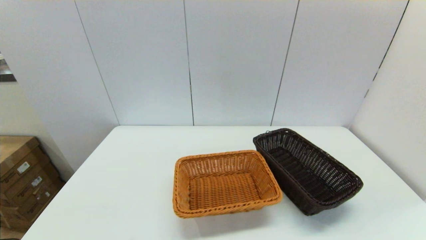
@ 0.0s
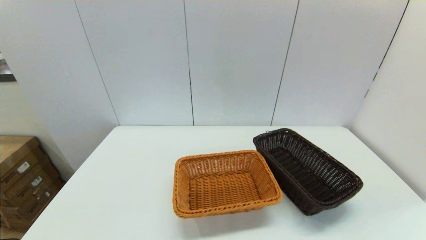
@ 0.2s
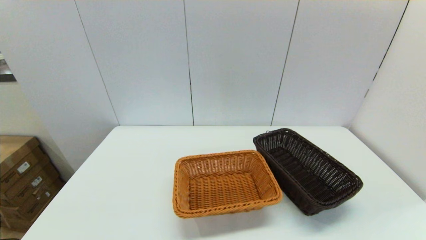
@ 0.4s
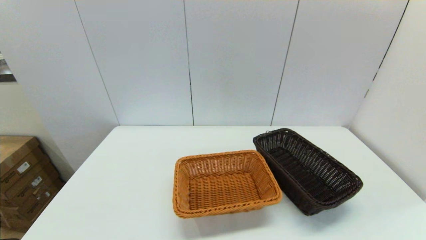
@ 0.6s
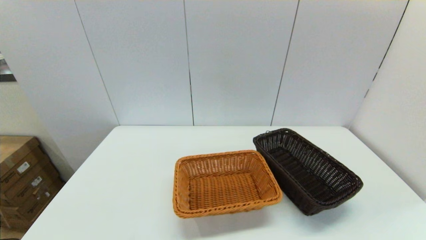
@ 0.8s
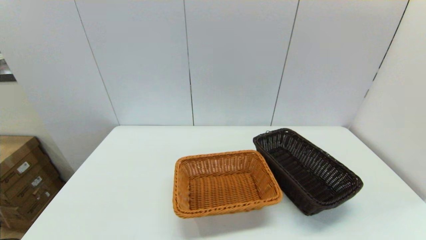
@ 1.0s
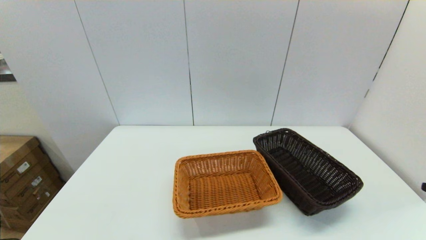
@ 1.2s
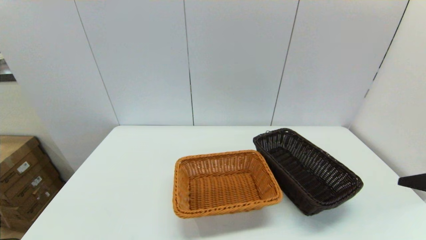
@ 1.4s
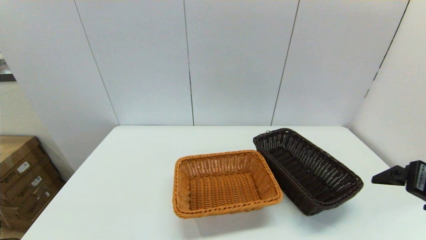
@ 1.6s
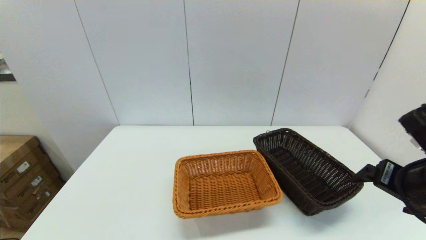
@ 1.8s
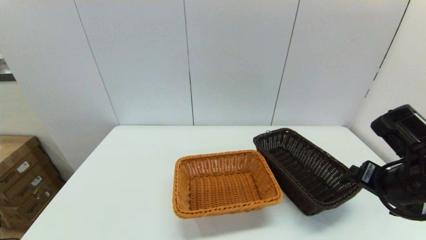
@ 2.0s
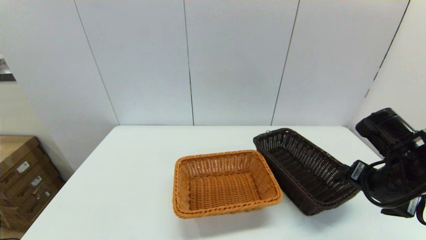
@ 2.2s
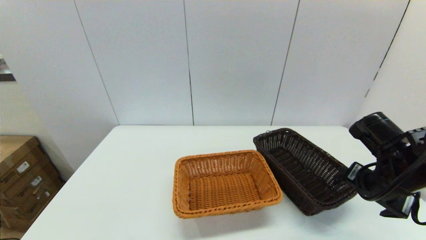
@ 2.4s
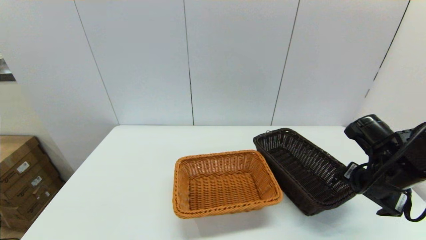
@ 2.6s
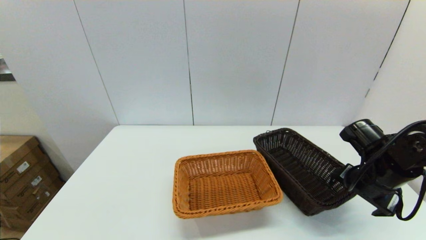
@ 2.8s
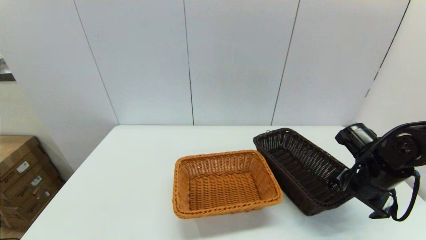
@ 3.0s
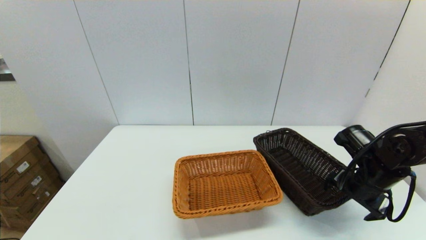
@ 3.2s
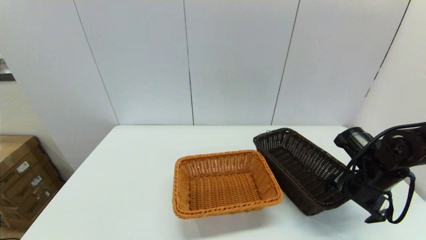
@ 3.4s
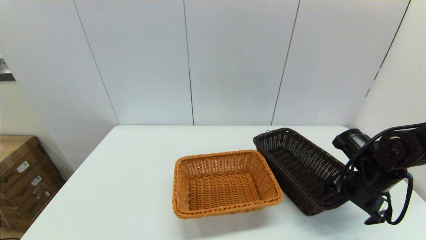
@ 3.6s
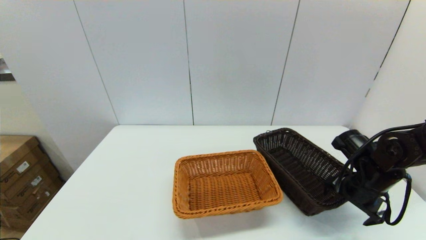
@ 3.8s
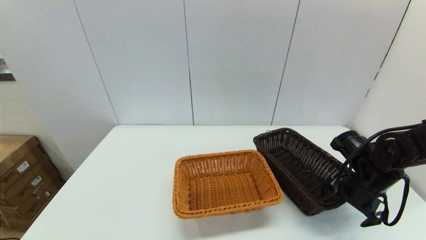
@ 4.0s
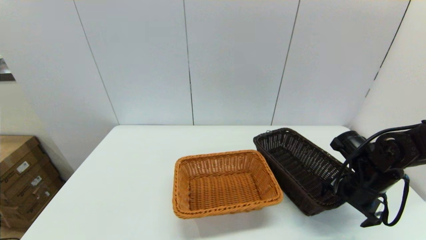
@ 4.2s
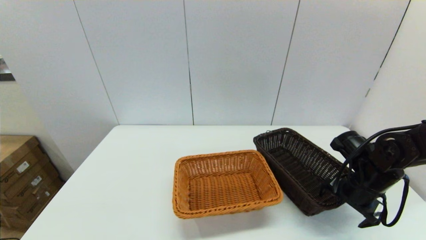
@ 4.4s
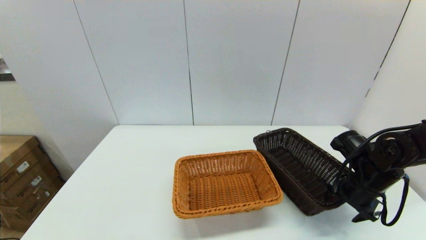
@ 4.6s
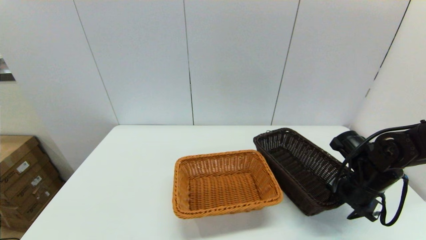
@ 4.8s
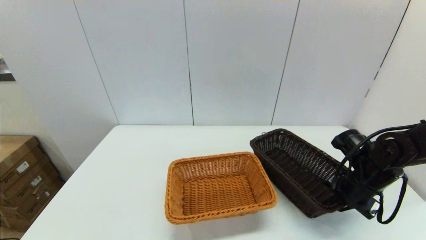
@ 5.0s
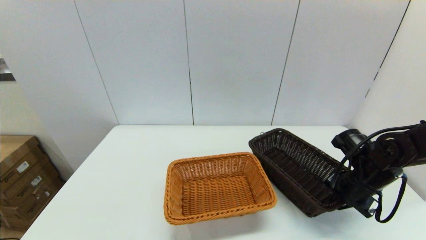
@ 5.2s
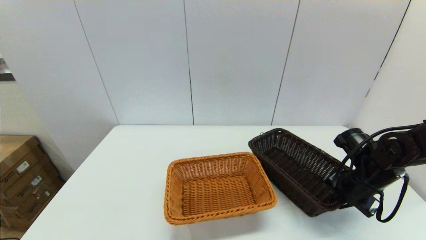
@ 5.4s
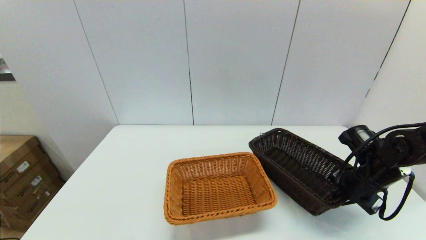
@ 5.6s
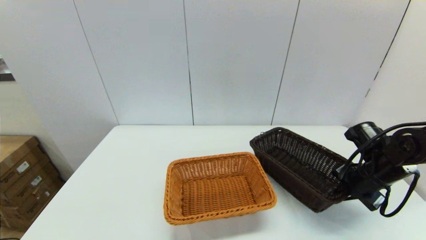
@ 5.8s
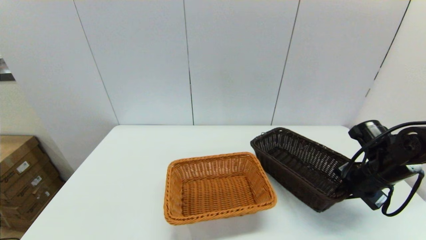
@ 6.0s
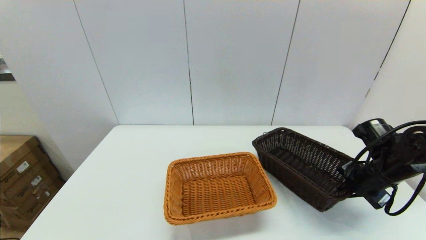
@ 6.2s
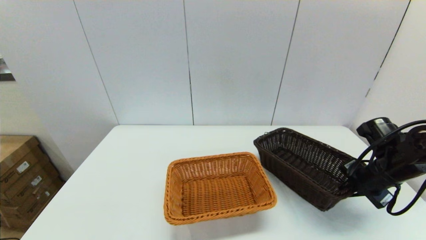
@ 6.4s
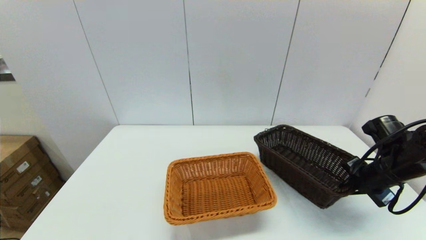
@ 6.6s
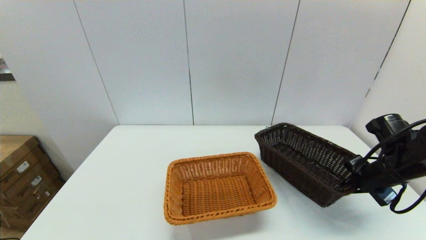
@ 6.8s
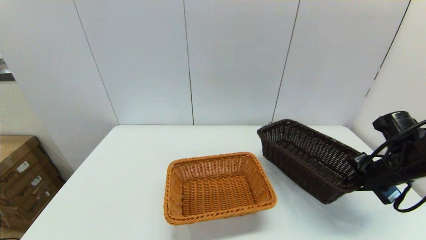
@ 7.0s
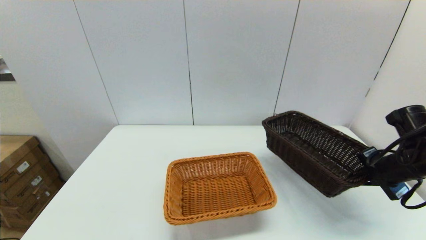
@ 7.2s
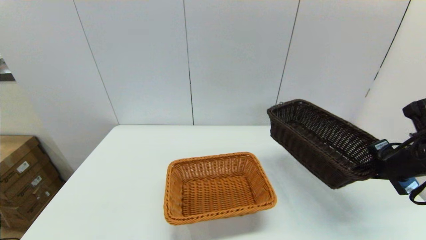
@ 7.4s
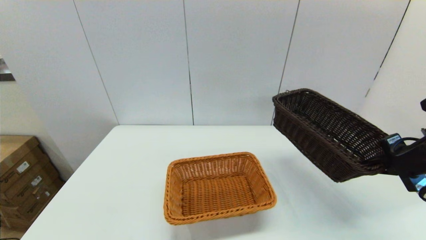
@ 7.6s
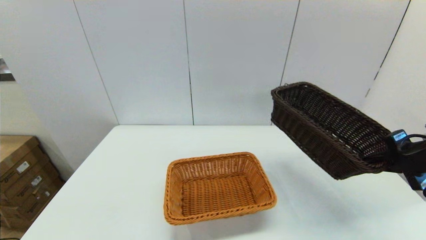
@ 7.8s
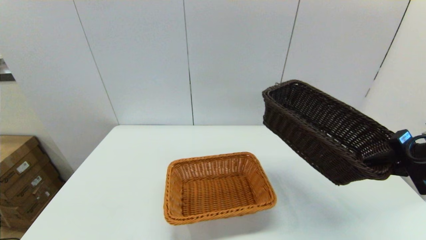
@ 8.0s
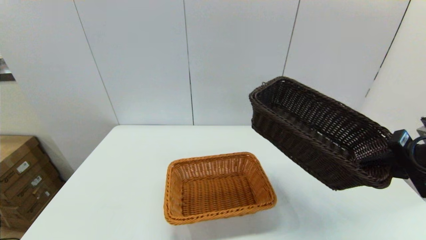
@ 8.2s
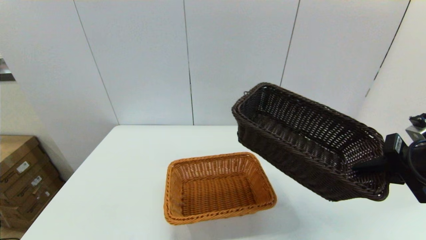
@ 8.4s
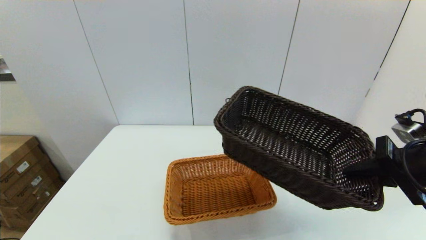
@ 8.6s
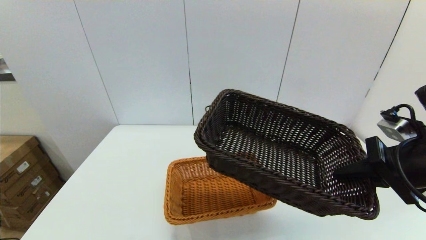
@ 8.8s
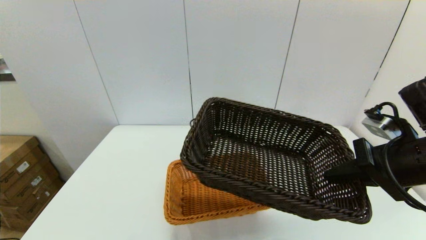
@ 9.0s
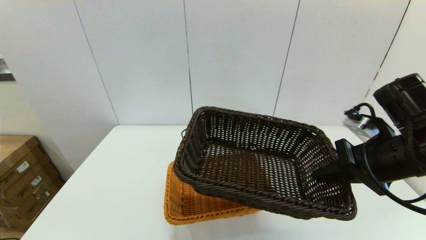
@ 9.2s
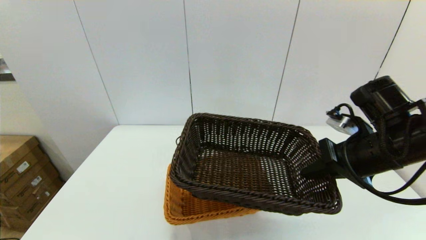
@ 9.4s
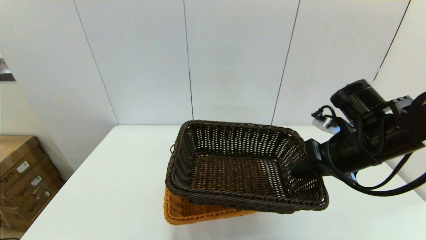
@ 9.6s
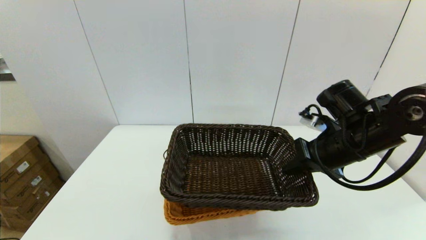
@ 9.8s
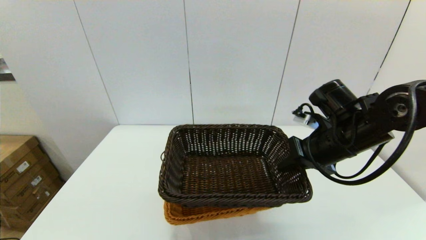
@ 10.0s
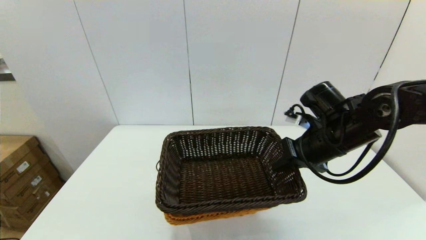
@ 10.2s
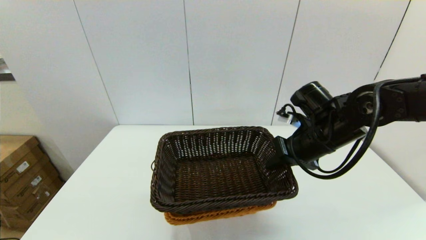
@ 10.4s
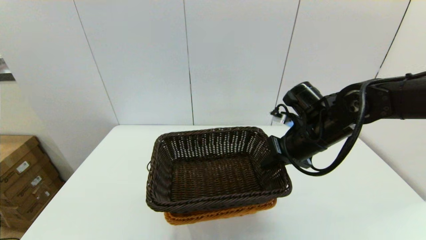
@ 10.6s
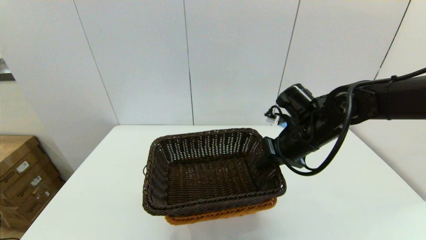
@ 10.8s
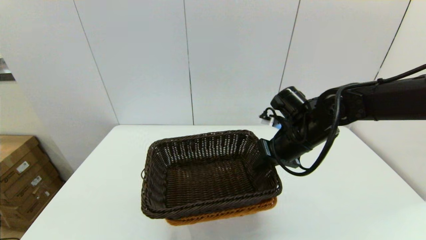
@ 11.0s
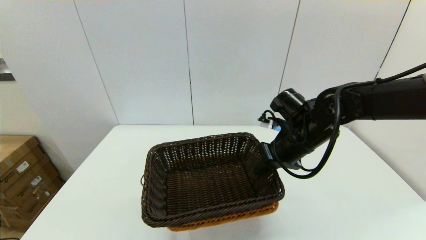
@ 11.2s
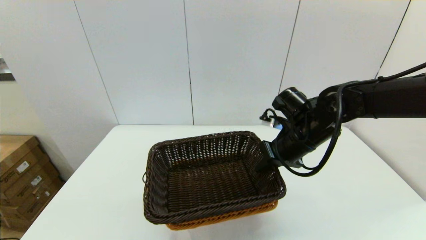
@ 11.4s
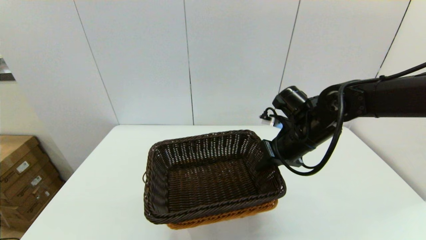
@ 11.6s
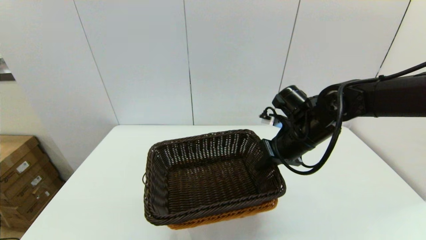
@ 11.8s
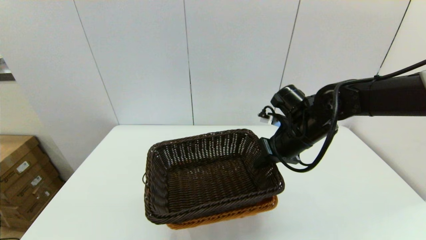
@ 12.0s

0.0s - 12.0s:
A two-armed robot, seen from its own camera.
Task of the whole recording: stack a basket on top of another basket.
Step, 0.0s - 5.2s: Grasp the dark basket with the right gripper.
0.0s - 1.6s: The right gripper shifts approximately 20 cm forward and upward.
1.6s - 3.0s: The right gripper moves forward and downward, about 15 cm.
3.0s - 4.4s: The grippers move only a little.
4.4s - 6.0s: The right gripper closes up.
6.0s - 7.6s: The right gripper shifts some 10 cm upward.
7.6s - 9.0s: The right gripper moves to the left, some 10 cm.
9.0s - 10.4s: The right gripper shifts approximately 15 cm forward and to the left.
10.4s - 12.0s: There are only small adjustments of the grippers.

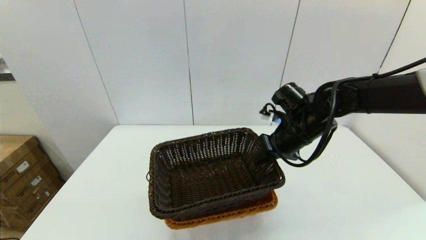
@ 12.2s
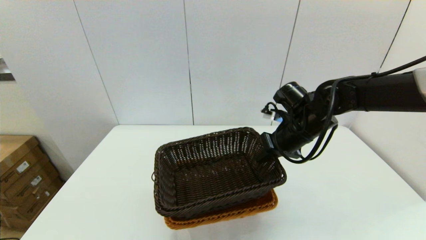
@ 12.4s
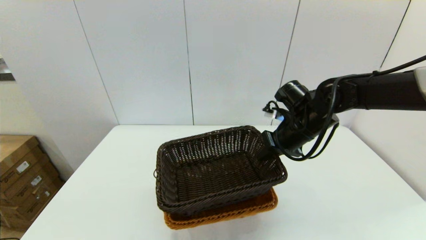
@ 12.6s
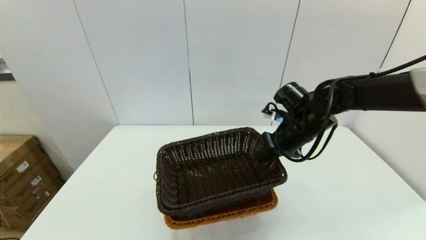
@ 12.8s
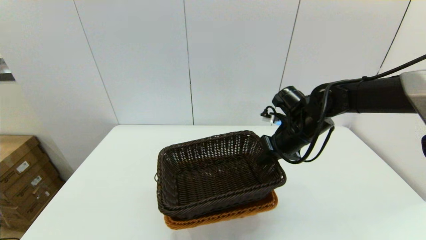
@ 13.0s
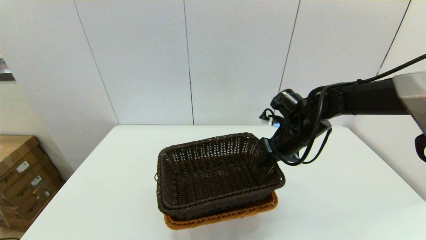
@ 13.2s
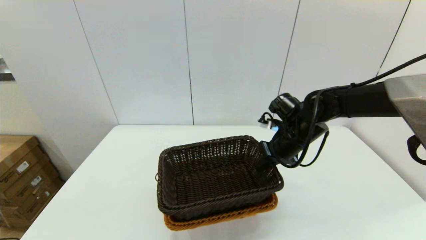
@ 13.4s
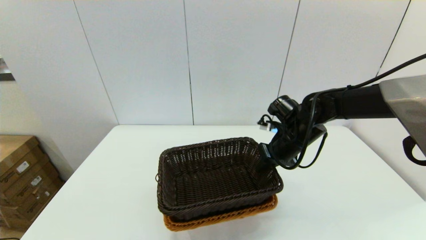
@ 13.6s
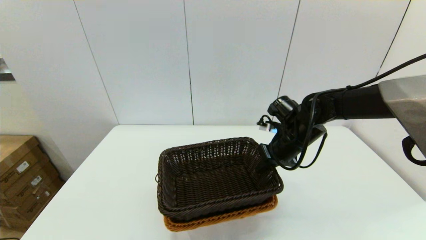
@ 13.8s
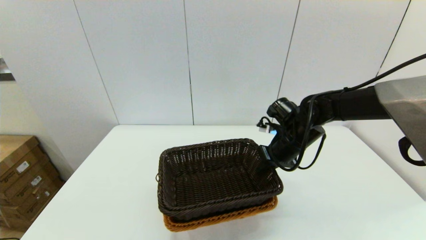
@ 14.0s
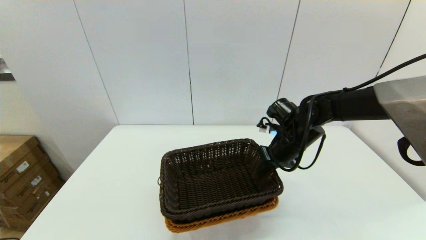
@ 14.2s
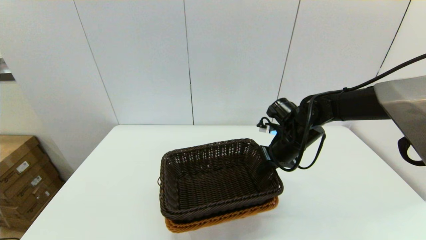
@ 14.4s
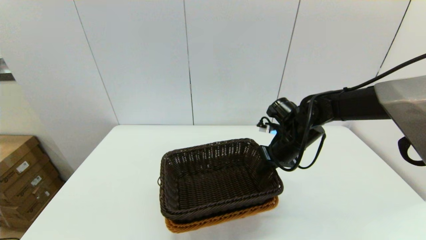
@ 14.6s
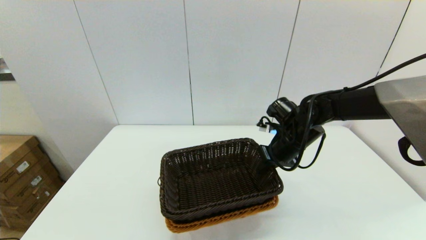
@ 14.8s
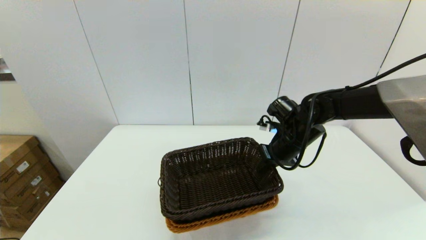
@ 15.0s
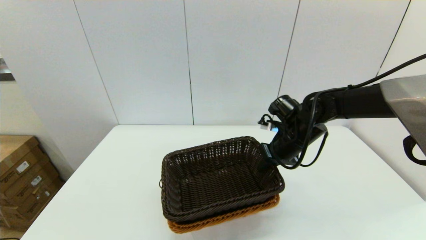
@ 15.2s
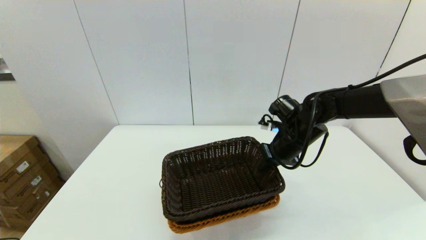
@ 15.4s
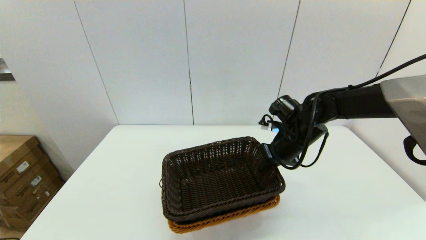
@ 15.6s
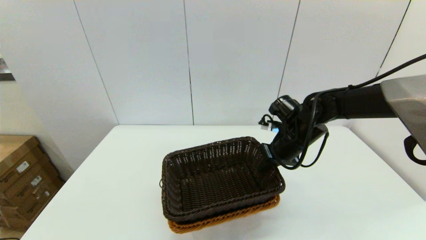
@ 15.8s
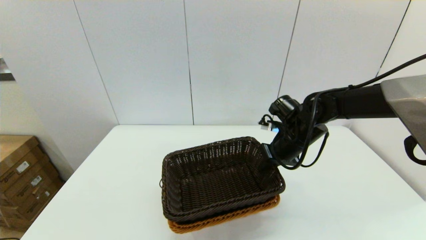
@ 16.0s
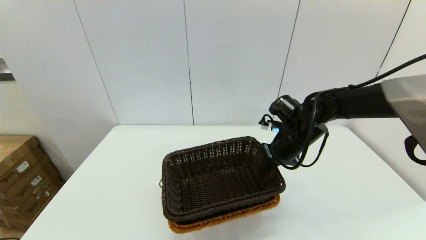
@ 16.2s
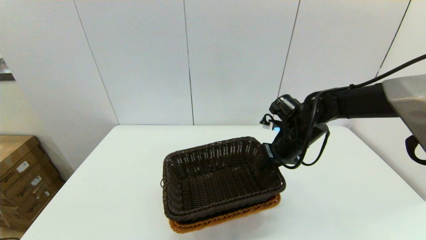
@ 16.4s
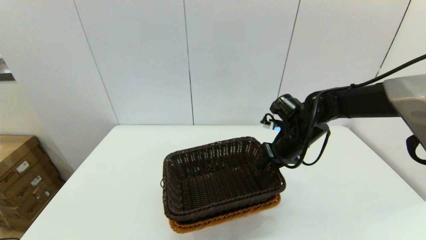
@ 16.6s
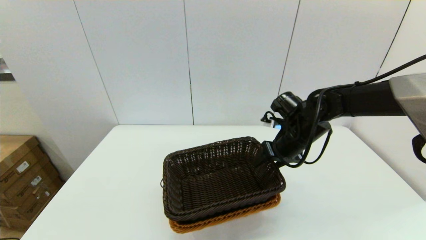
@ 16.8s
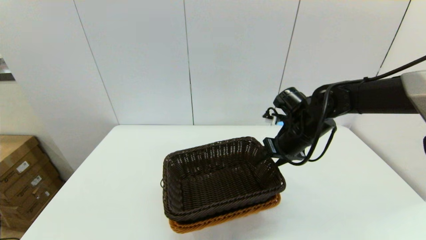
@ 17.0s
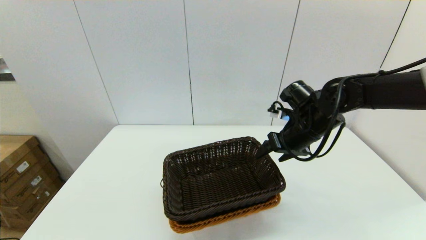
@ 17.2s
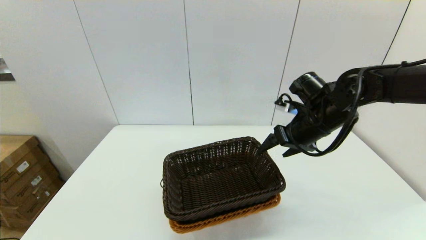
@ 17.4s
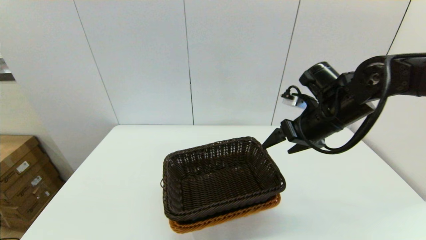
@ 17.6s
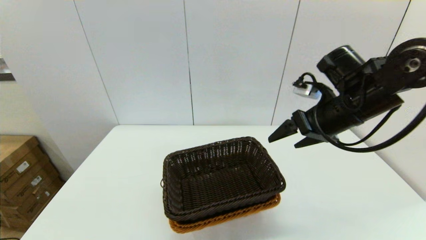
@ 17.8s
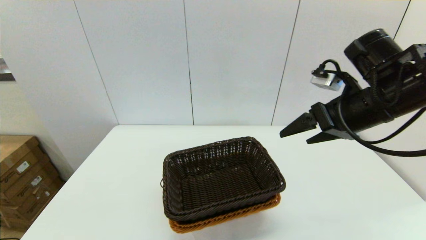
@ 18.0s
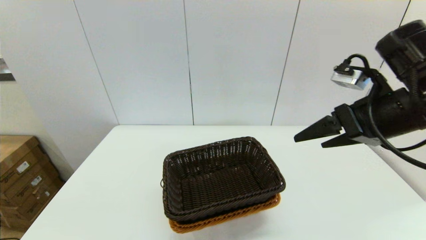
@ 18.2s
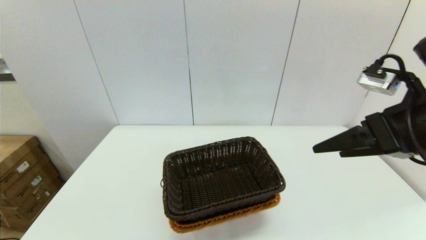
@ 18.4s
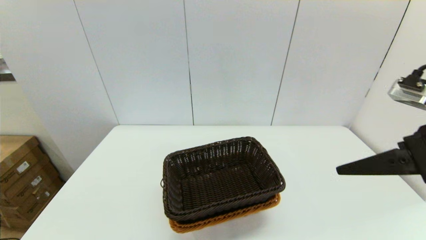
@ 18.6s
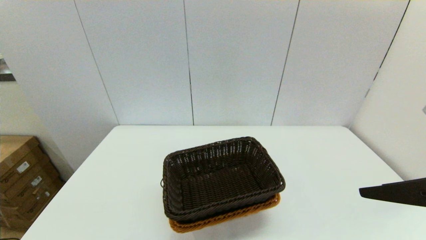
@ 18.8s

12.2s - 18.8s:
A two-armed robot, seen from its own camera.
Task of the whole recording: stack a basket on top of another basket.
Step, 12.2s - 17.0s: Place the dark basket into the light color basket with the right gripper.
12.2s - 13.8s: The grippers move only a little.
13.8s - 15.4s: The two grippers keep their place.
15.4s - 17.2s: The right gripper opens.
17.2s - 18.8s: The right gripper travels backward and upward by about 25 cm.
